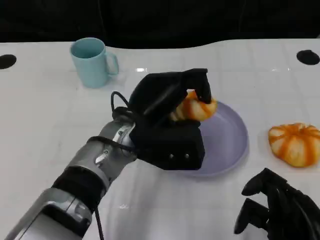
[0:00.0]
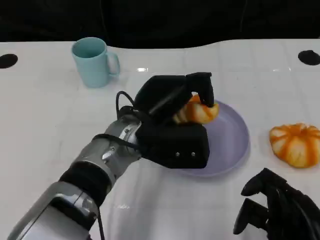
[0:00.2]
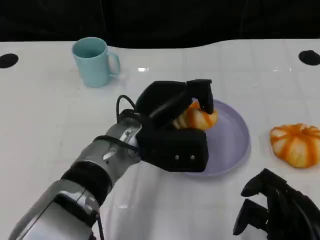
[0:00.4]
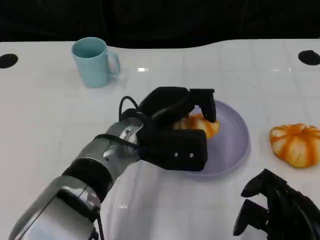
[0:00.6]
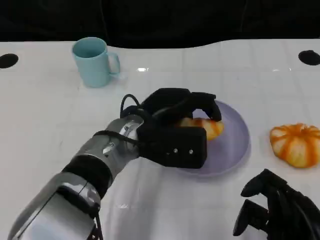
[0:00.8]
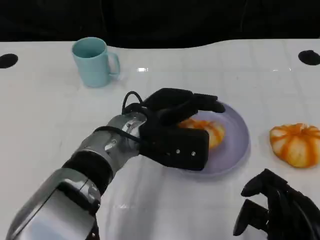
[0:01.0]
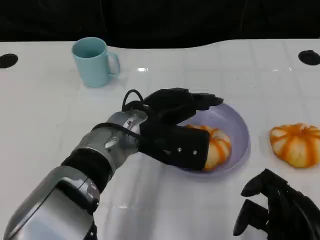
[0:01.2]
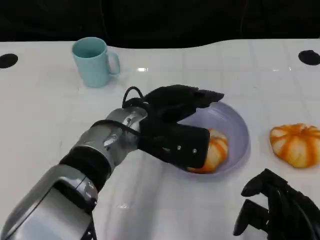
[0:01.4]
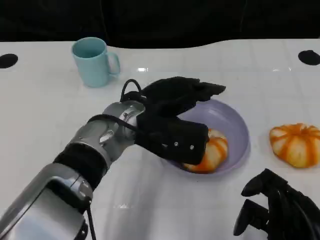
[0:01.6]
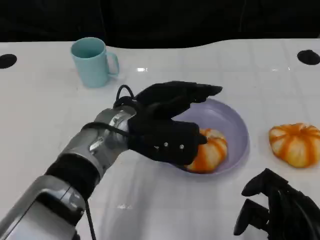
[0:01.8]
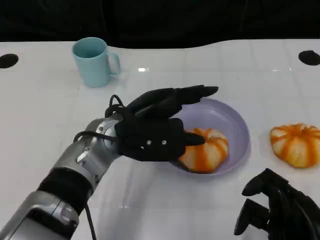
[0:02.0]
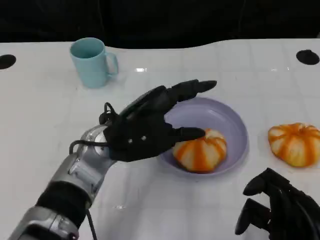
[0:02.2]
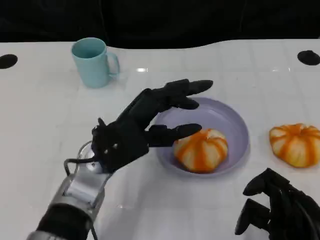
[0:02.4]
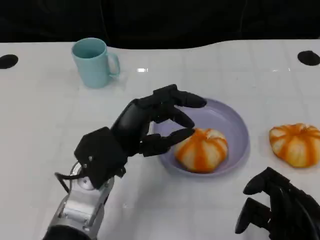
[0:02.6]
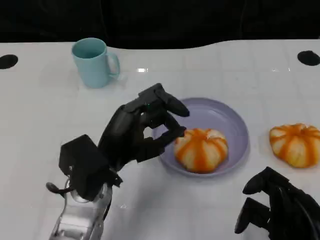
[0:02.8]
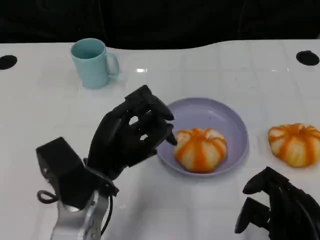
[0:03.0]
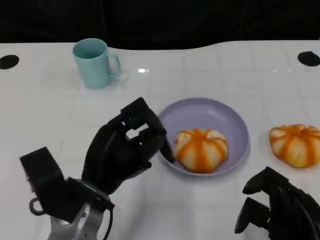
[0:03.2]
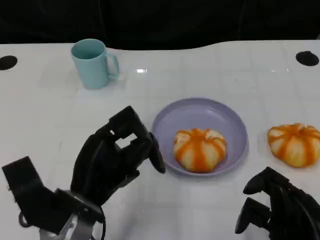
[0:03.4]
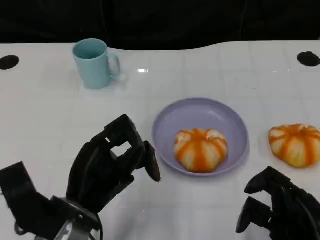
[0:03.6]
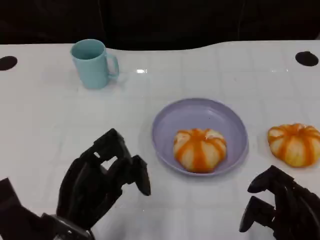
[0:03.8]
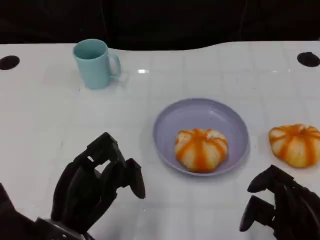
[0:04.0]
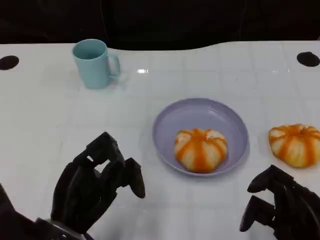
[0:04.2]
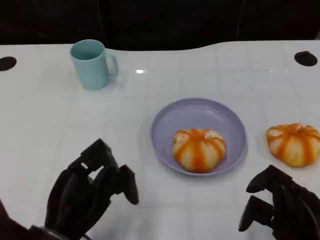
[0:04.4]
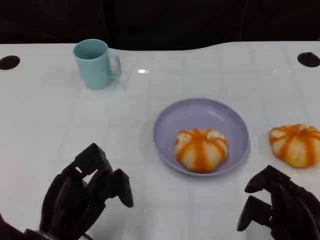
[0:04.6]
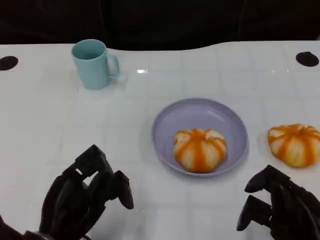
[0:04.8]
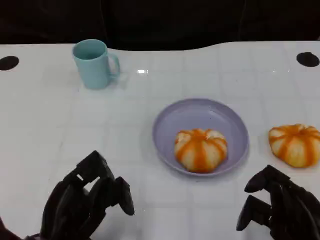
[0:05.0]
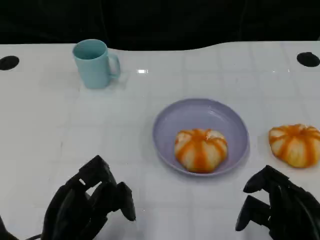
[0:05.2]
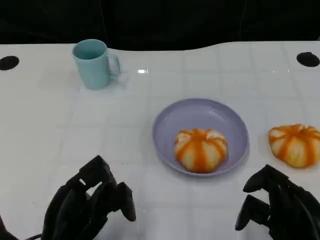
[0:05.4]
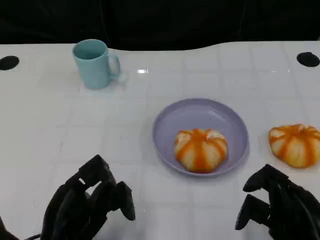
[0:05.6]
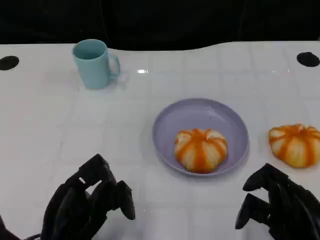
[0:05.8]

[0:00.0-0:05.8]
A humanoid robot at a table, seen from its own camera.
Task of the whole recording: Grasp the bread from the table and place it into the plate.
1.4 to 2.8 s: The left hand shifts roughly 10 cm backward and to the left.
2.8 to 4.4 s: The left hand goes roughly 10 cm backward and to the left.
4.4 to 5.8 s: The hands move only a little.

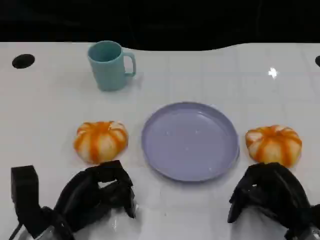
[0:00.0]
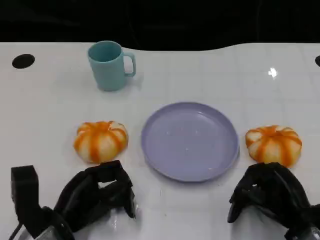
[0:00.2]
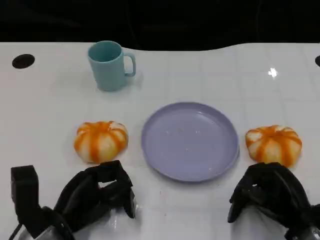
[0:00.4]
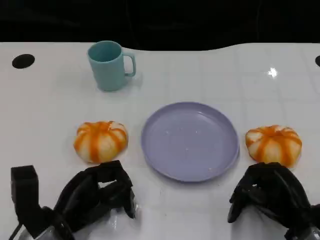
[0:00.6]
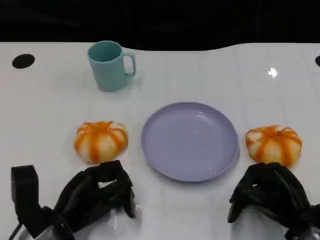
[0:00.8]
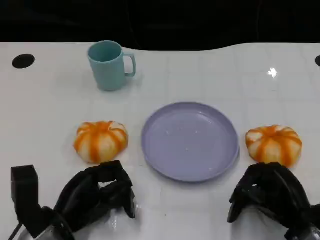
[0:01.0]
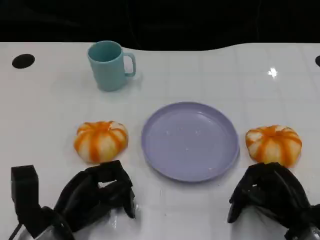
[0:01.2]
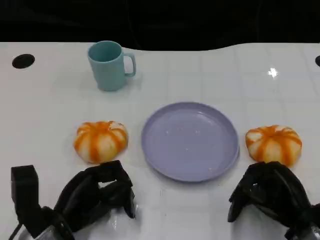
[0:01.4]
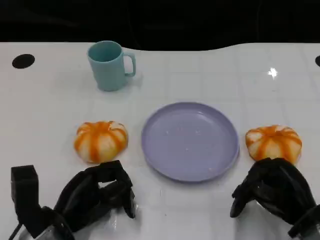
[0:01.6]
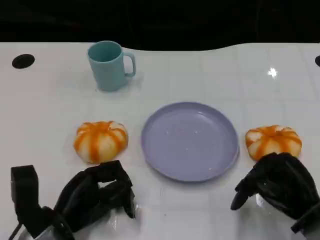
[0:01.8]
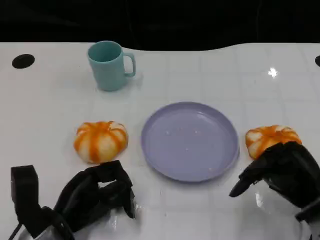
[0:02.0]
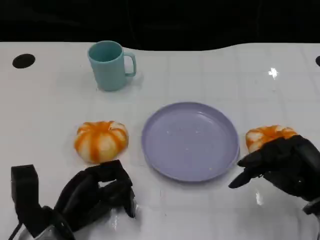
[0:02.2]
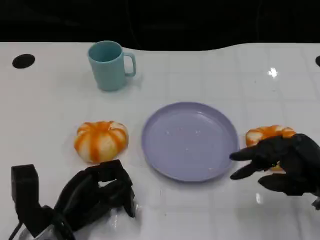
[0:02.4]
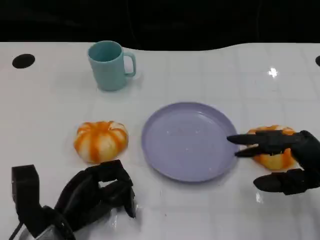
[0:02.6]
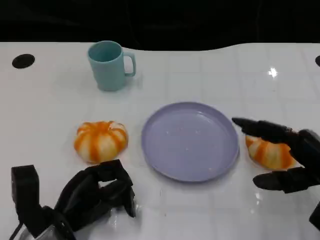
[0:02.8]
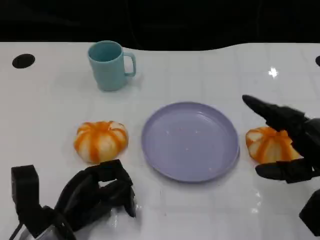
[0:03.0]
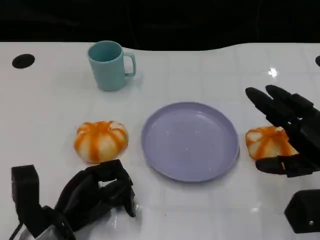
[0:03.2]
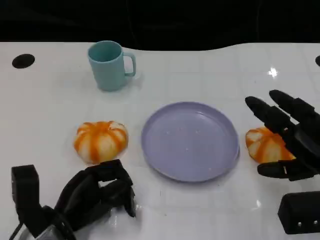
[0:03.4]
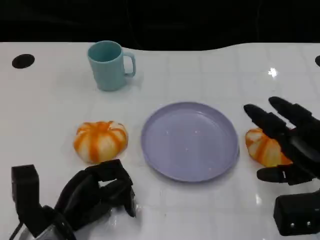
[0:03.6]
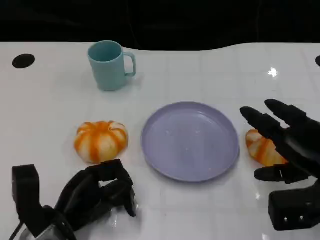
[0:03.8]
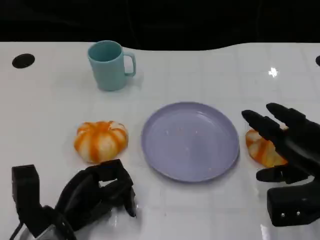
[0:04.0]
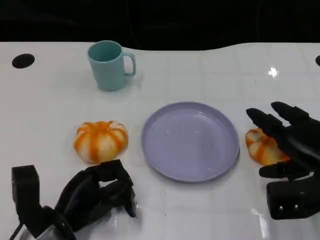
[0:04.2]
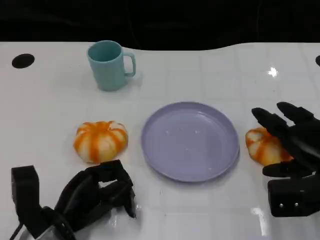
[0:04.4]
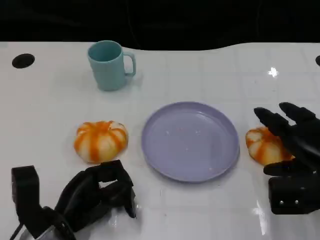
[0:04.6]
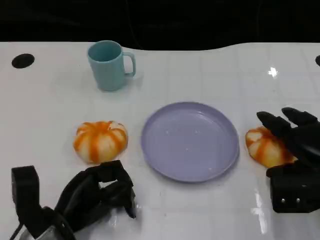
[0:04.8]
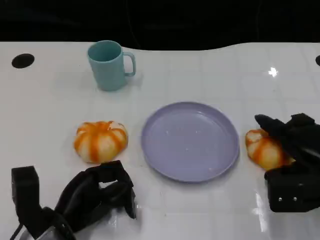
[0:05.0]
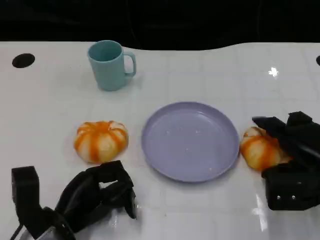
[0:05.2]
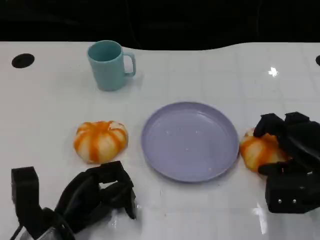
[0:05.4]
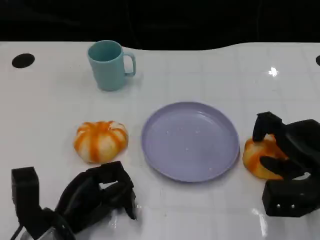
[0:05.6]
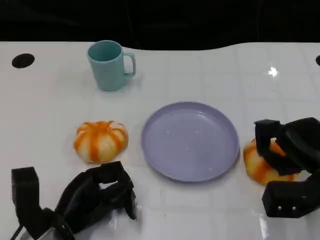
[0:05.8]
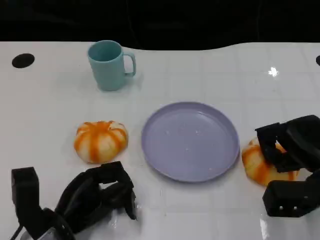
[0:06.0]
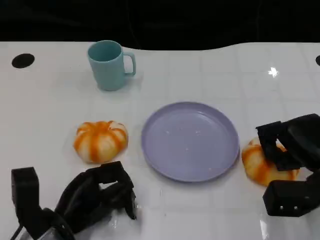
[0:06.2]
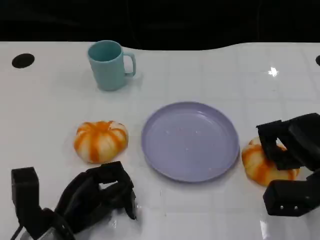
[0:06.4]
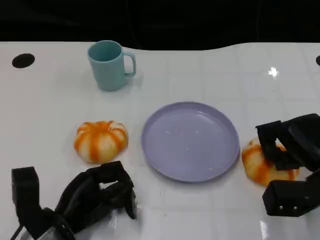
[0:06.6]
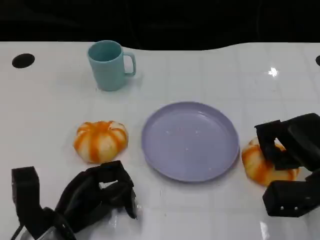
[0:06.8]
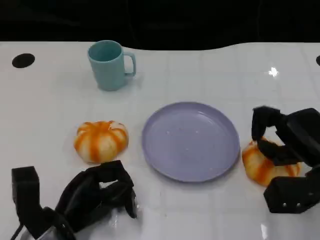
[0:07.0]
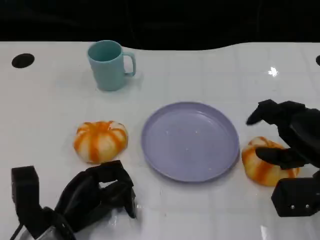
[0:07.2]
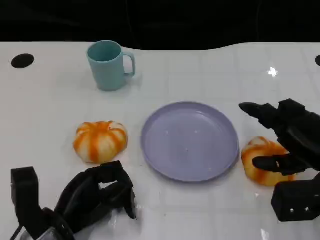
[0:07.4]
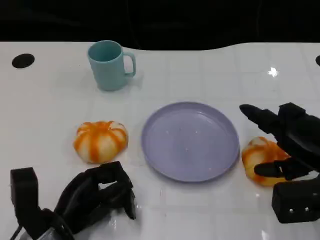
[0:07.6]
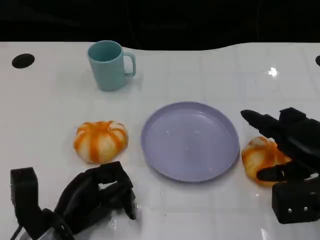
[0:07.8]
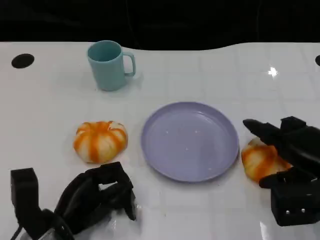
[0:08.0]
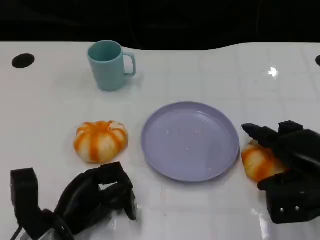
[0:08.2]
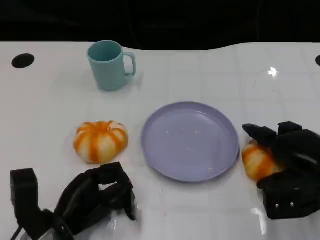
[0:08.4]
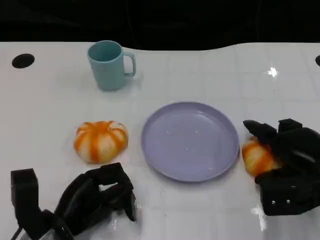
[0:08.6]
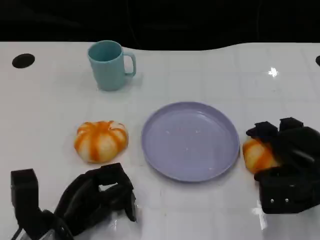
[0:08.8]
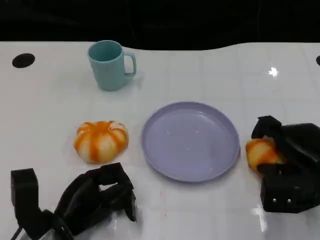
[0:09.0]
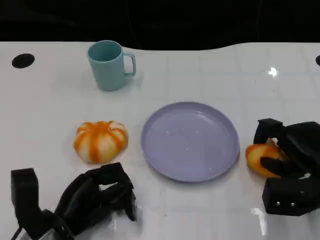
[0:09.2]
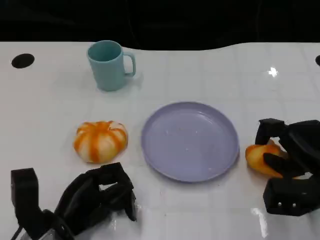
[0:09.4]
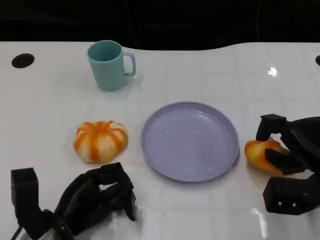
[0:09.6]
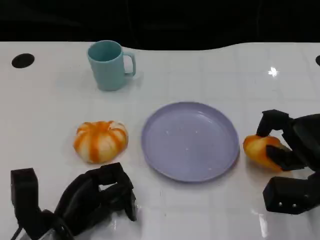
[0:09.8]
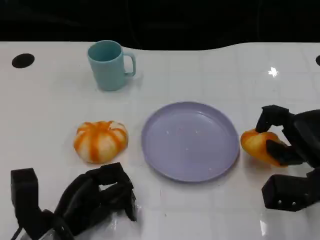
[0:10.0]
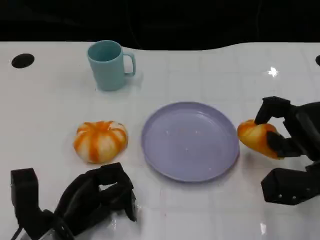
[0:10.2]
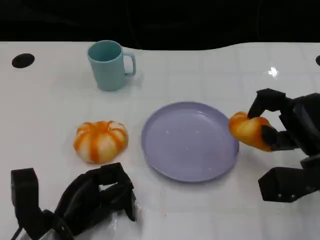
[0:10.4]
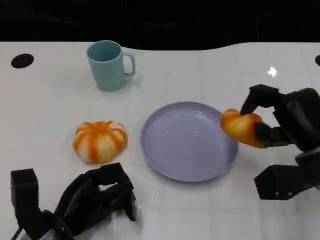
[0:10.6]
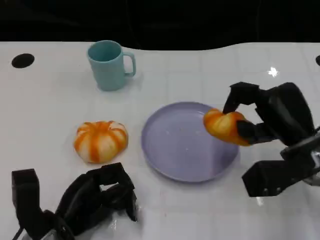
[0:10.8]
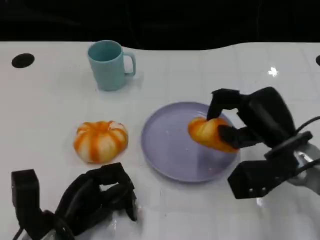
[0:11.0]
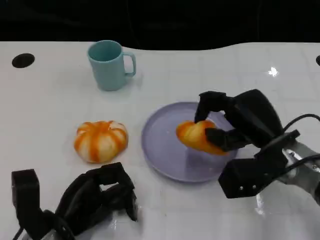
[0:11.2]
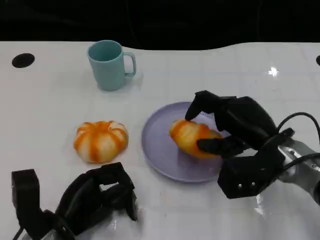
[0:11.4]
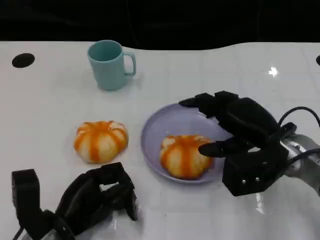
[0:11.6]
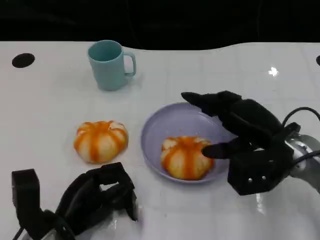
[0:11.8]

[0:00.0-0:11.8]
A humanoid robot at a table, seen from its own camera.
Task of the whole recording: Grasp the bread from the table and place it into the plate.
0.0 to 1.4 s: Both hands stay put.
1.4 to 3.0 s: The right hand goes roughly 10 cm upward.
6.0 to 7.4 s: The hands move only a little.
10.4 to 11.8 s: The right hand shifts by some 5 cm.

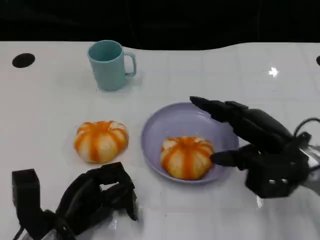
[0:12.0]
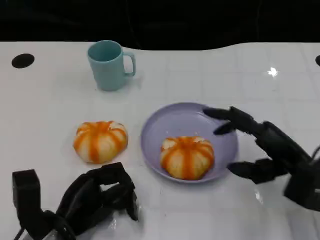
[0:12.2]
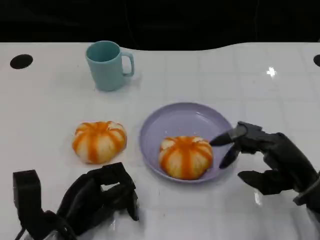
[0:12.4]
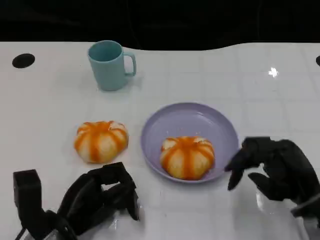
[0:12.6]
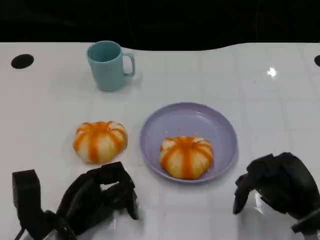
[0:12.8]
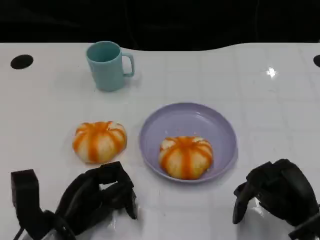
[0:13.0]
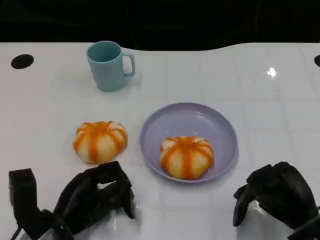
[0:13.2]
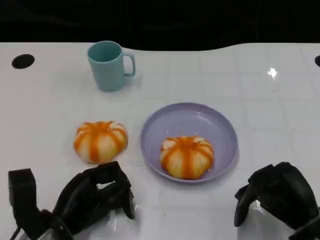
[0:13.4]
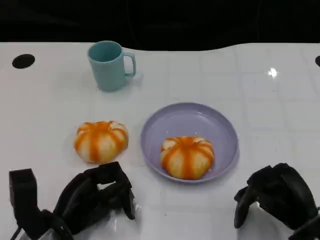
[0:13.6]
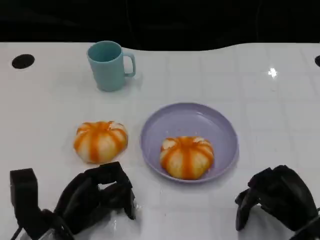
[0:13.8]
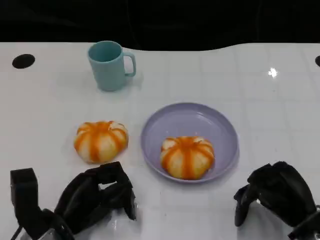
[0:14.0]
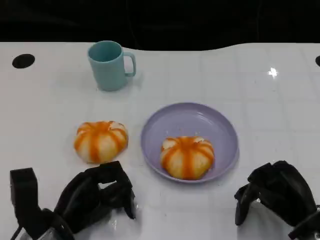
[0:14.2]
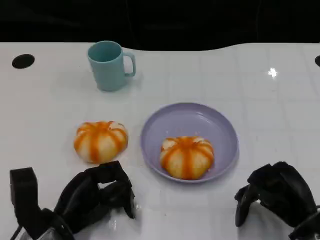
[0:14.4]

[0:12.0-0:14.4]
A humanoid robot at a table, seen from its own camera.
Task of the whole recording: Grasp the bread from the table and place it into the plate.
12.0 to 13.2 s: The right hand moves backward and downward, some 10 cm.
13.2 to 14.4 s: The hands stay close to where they were, moving slightly.

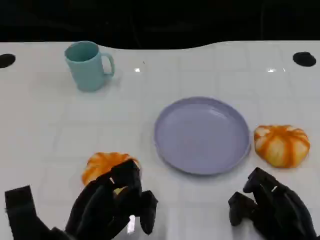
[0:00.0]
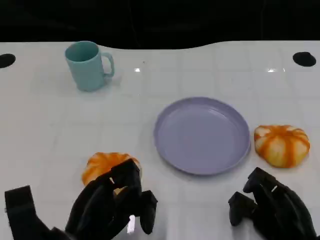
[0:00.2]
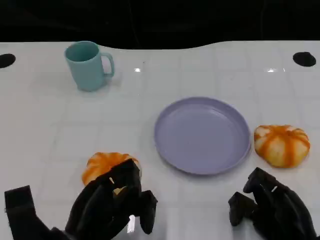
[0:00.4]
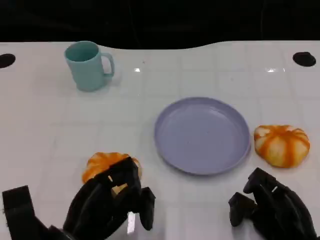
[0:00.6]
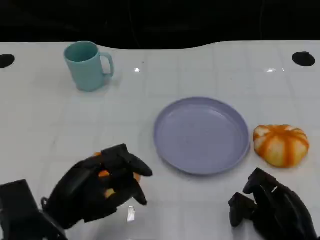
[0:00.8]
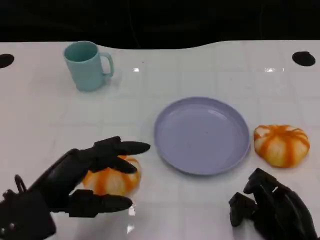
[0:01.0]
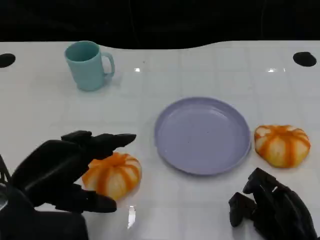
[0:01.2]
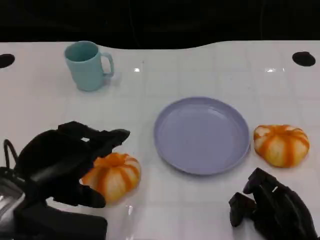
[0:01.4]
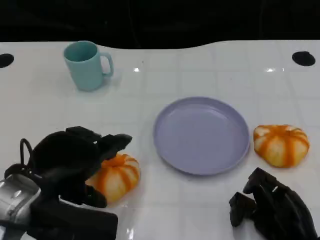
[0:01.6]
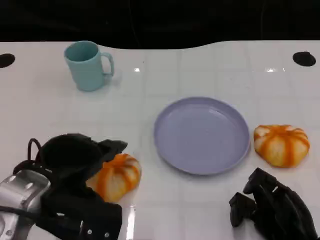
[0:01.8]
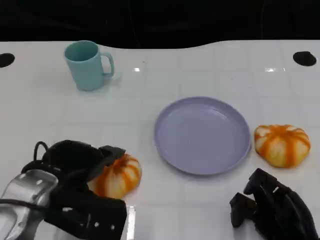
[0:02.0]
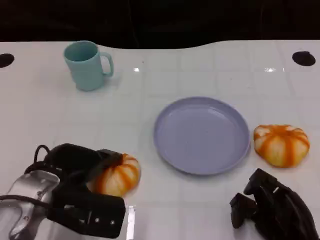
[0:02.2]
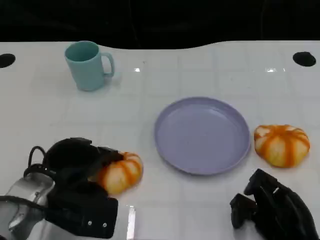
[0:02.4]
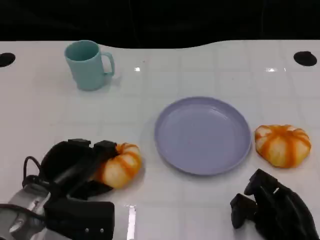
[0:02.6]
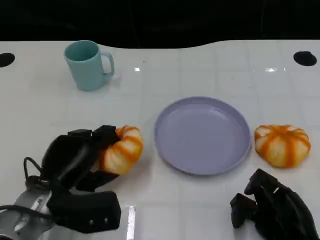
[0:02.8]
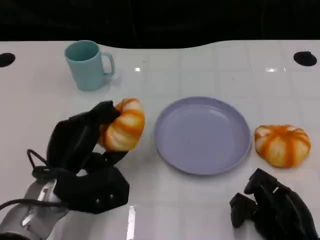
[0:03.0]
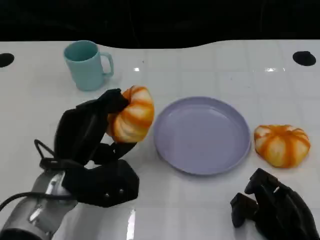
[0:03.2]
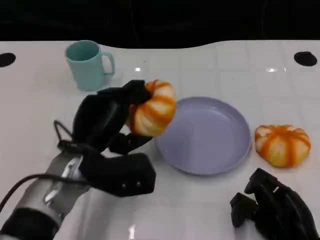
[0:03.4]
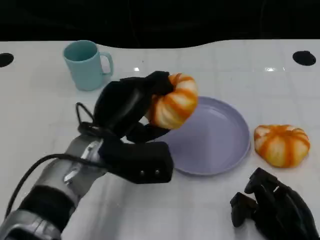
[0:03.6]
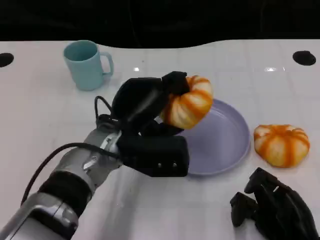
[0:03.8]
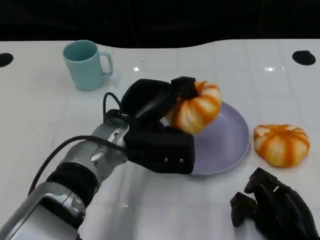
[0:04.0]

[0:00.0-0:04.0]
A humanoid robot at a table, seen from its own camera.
Task of the whole recording: Grasp the bread from the table and place it into the plate.
0.0 to 1.4 s: The left hand heads upward, covering roughly 10 cm.
1.4 to 2.6 s: The left hand goes about 10 cm downward and forward.
2.6 to 4.0 s: The left hand shifts about 15 cm to the right, upward and forward.
